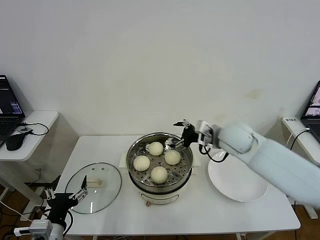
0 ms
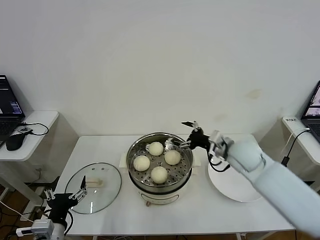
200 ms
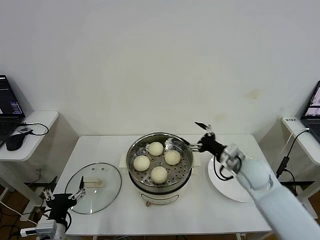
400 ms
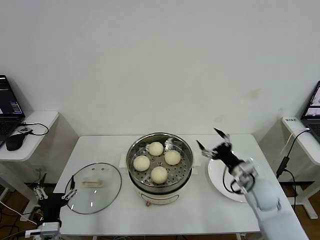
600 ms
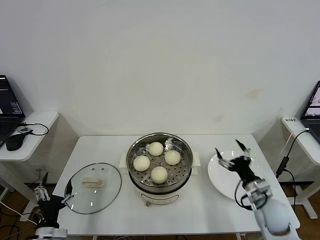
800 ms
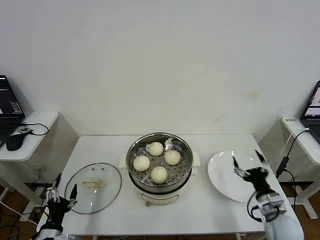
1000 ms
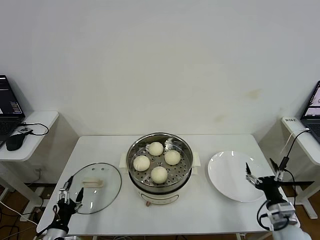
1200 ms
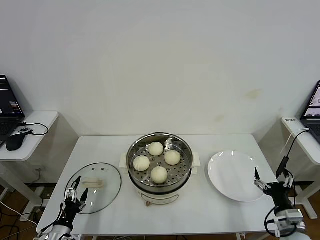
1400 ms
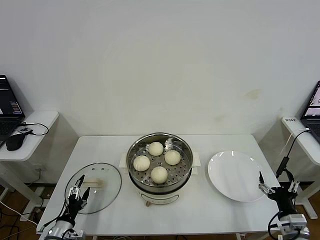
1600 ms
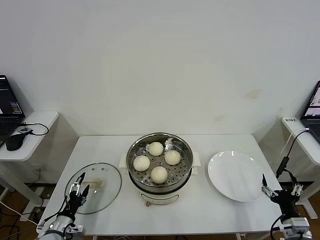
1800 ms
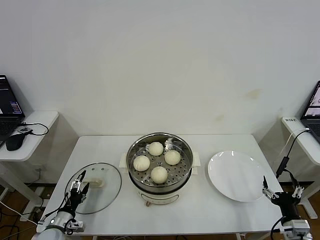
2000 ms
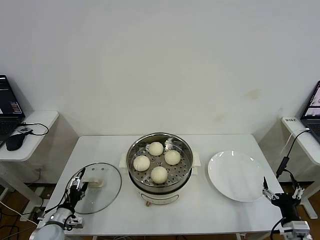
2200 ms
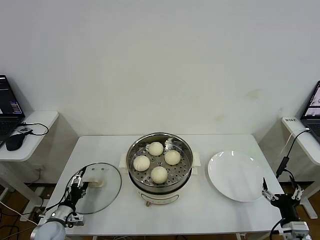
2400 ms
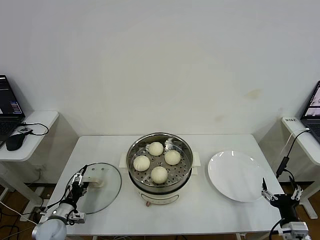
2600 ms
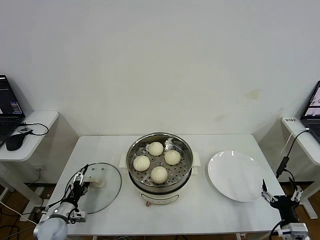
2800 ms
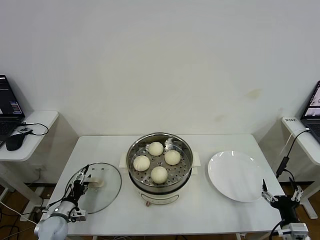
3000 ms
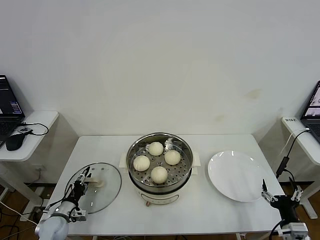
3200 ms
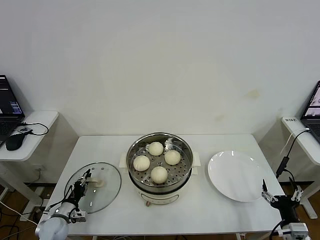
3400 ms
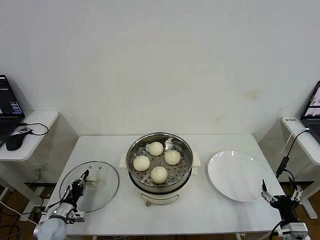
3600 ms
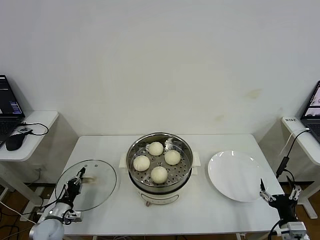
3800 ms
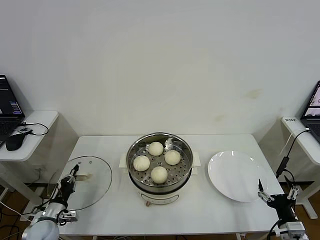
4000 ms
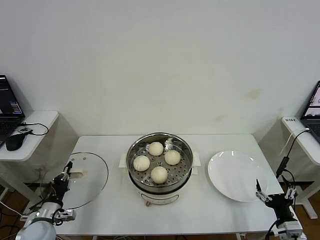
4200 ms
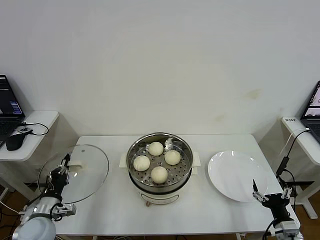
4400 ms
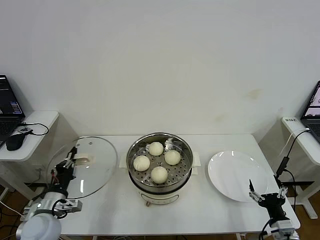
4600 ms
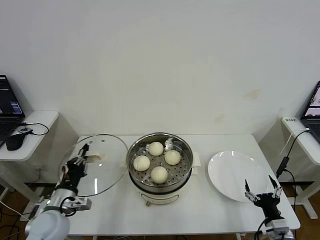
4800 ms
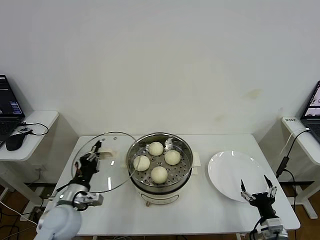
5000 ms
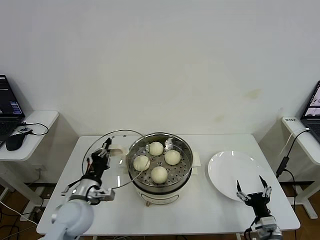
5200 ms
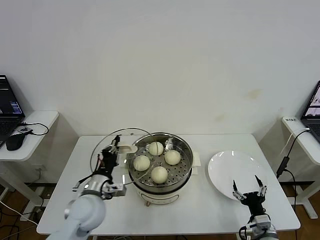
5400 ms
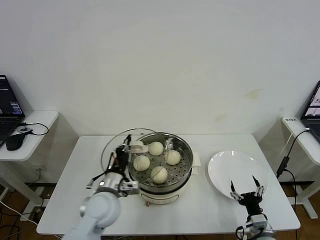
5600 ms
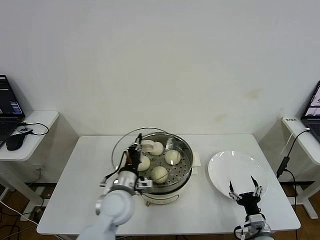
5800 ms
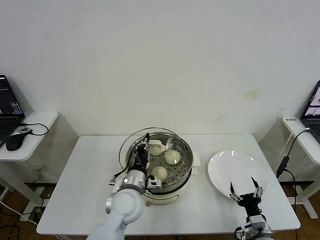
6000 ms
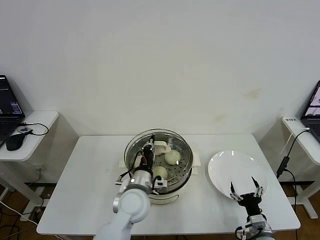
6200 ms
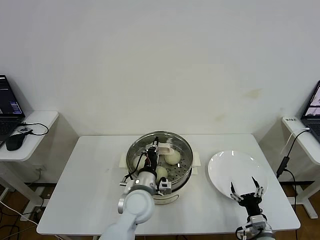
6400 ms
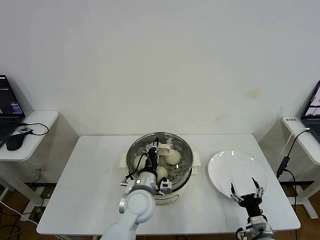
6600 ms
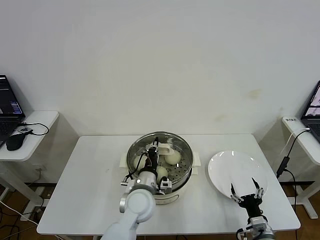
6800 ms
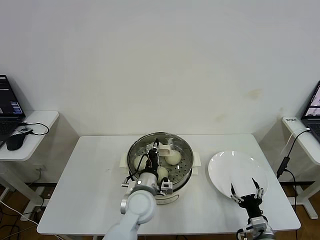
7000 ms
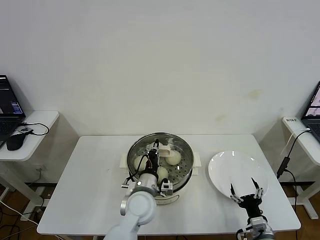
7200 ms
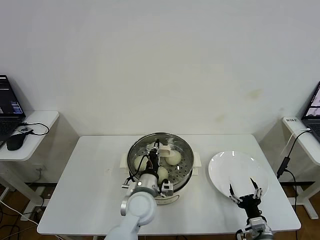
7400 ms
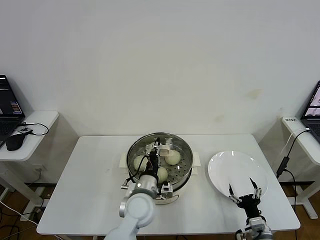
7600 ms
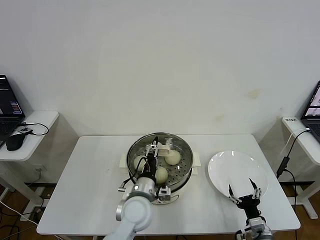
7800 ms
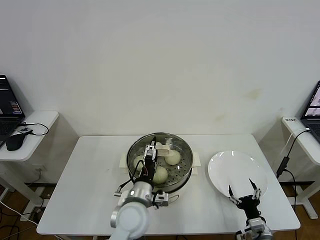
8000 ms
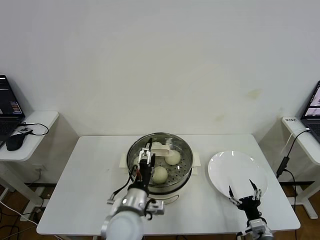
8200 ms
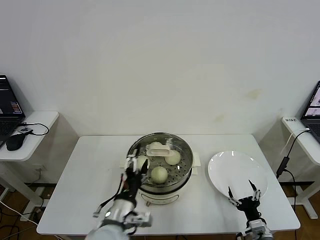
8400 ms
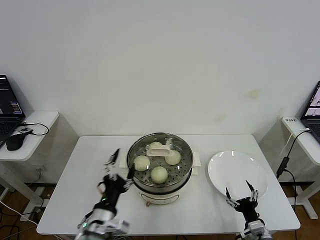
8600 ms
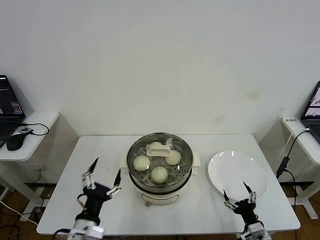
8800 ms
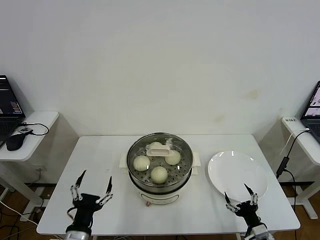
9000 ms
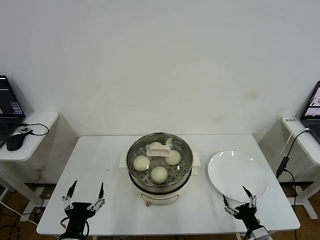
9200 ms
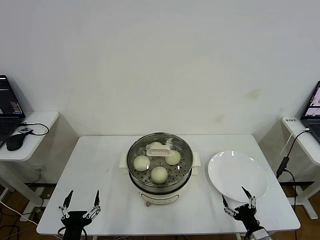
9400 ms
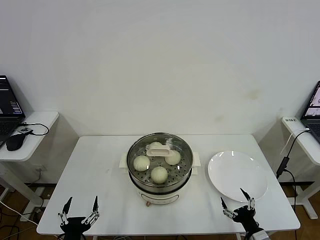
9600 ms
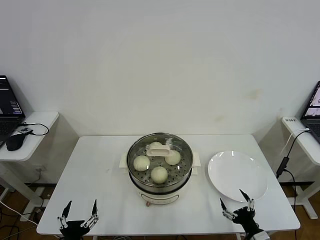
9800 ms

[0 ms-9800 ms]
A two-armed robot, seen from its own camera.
Step, 0 ms to 3600 ms: Grasp the pot lid with left gripper.
Step, 3800 ms to 7600 ms: Place the pot lid on the steamer with left gripper.
0 ms to 1400 ms: The left gripper travels downward and to the left by about 15 cm; the right gripper heads backward, downward and to the right, covering some 35 cm.
1400 ms to 2800 ms: The left gripper travels forward by roughly 10 cm.
2800 ms to 4200 ms: The left gripper goes about 5 cm upward, and closes.
4200 ms to 5600 ms: The right gripper travels to the left and downward by about 10 cm; the left gripper heads to the right and upward, covering about 25 cm.
5600 ms to 7000 ms: The left gripper goes roughly 10 cm to the right.
7000 ms to 8400 ms: The left gripper shifts approximately 10 cm backward and to the left, and opens up.
8400 ms to 9800 ms: The left gripper moves to the left, backward and downward, about 20 cm.

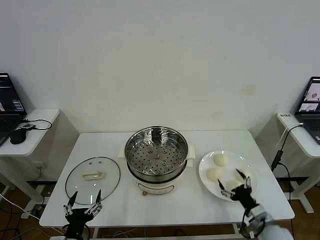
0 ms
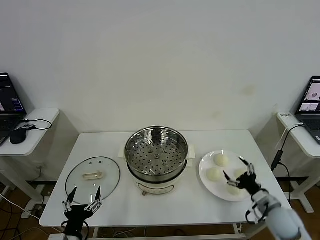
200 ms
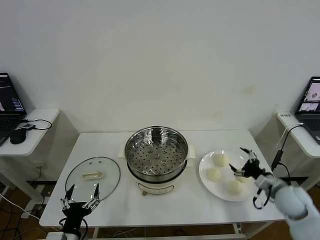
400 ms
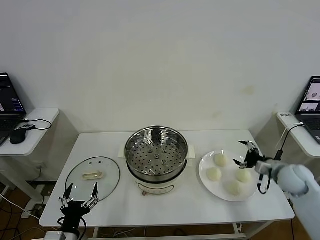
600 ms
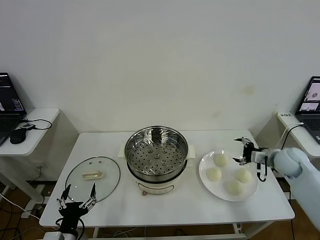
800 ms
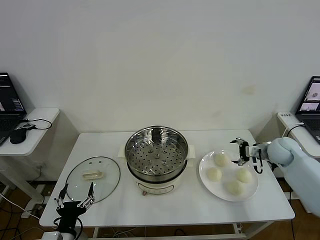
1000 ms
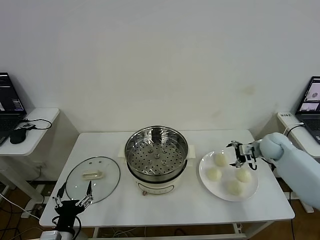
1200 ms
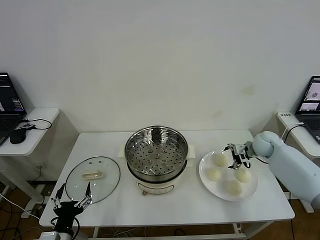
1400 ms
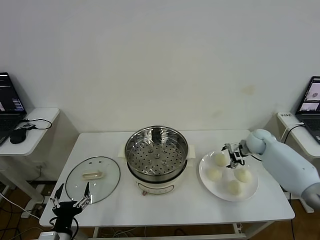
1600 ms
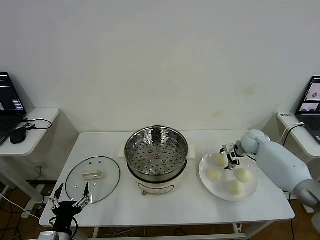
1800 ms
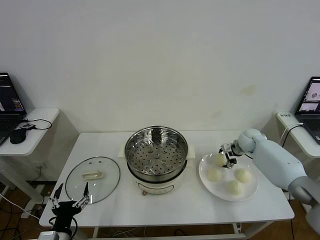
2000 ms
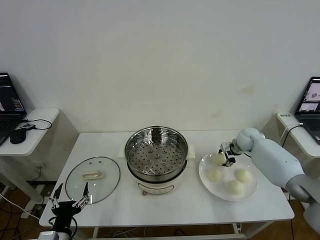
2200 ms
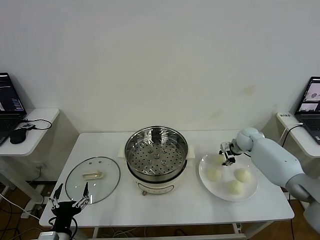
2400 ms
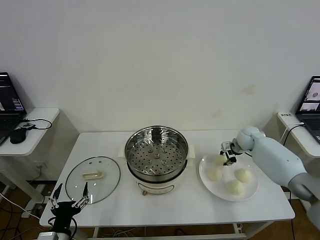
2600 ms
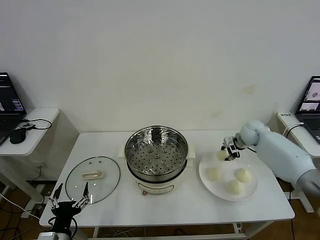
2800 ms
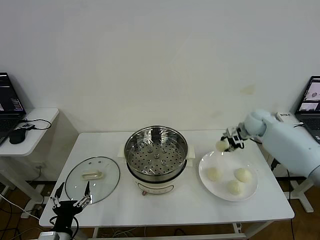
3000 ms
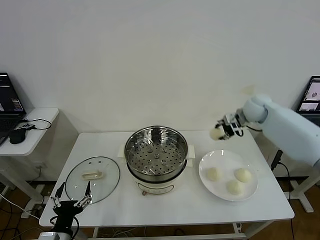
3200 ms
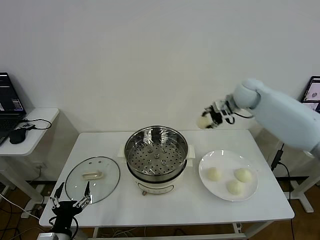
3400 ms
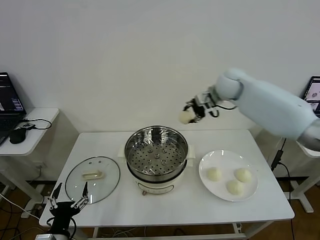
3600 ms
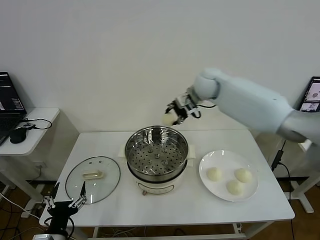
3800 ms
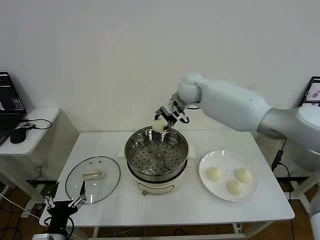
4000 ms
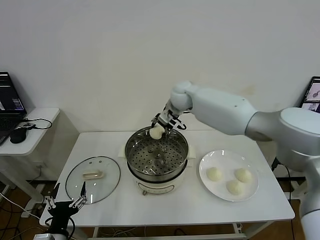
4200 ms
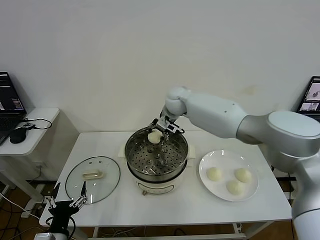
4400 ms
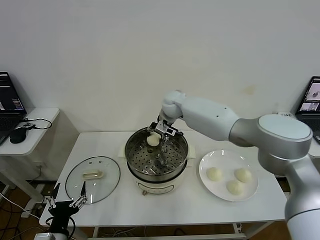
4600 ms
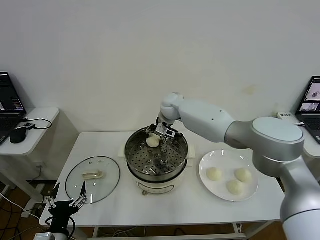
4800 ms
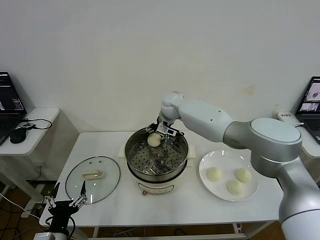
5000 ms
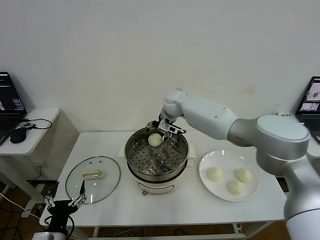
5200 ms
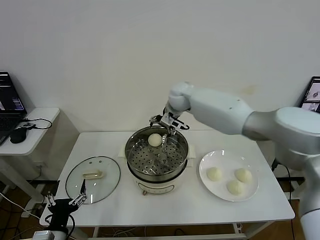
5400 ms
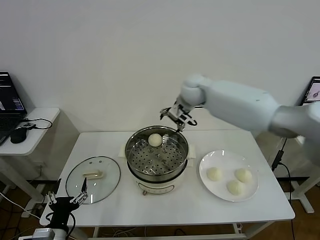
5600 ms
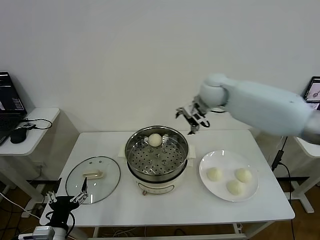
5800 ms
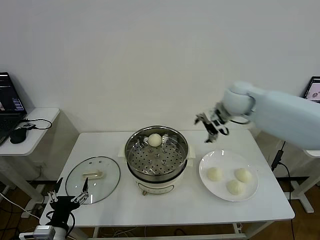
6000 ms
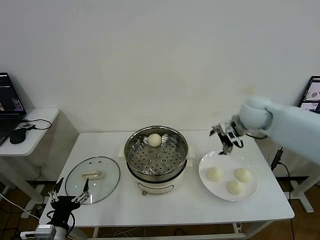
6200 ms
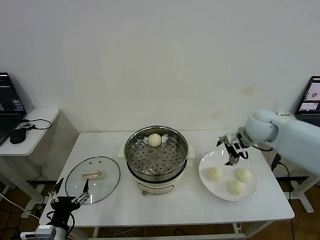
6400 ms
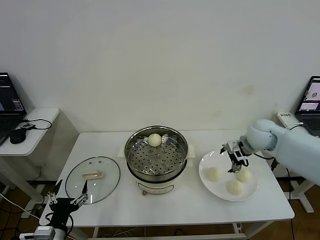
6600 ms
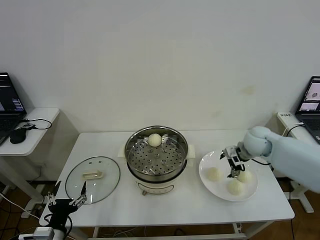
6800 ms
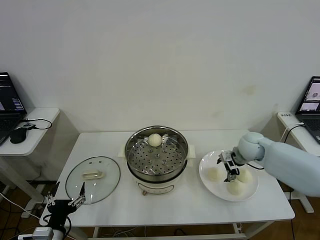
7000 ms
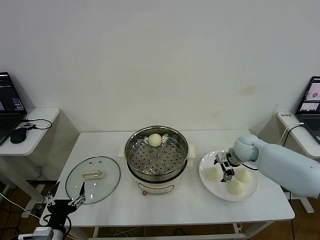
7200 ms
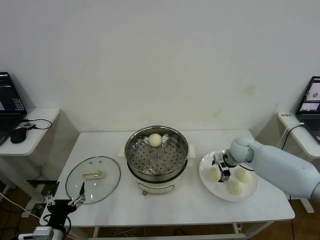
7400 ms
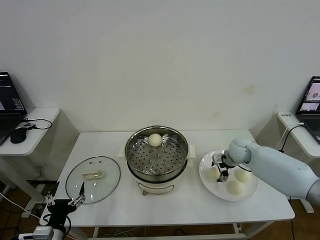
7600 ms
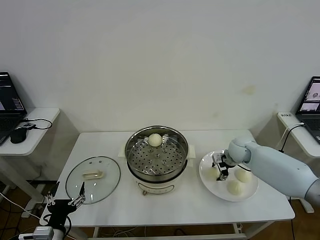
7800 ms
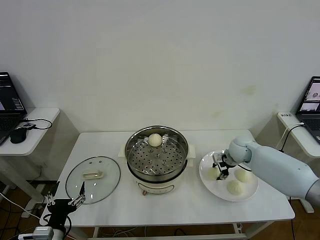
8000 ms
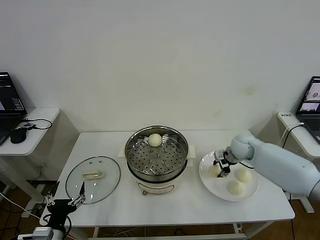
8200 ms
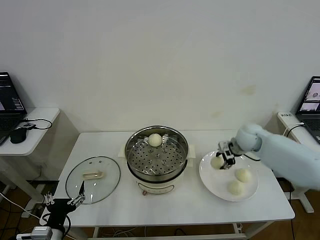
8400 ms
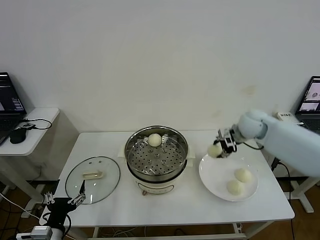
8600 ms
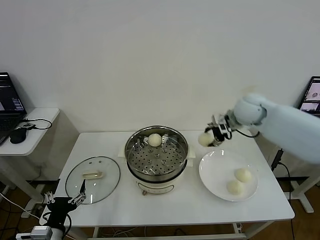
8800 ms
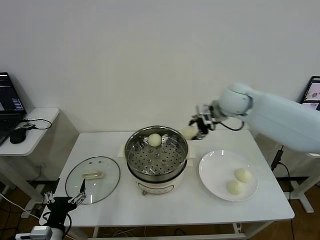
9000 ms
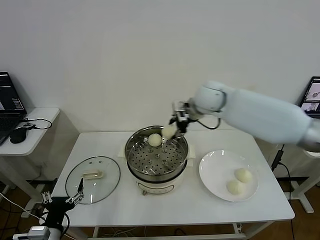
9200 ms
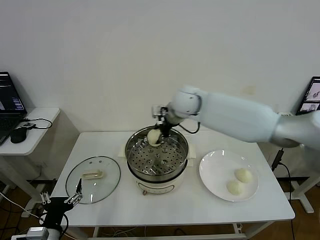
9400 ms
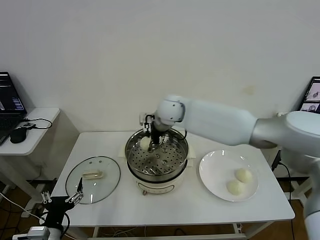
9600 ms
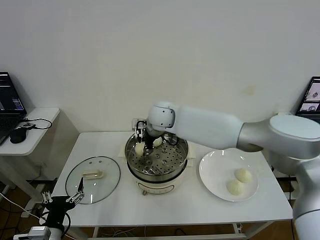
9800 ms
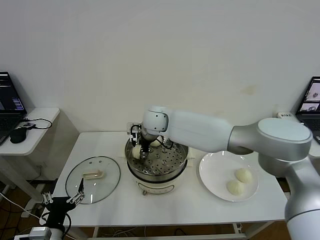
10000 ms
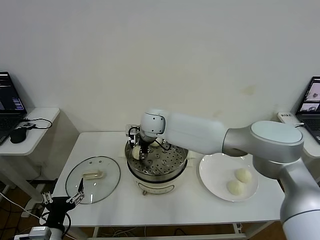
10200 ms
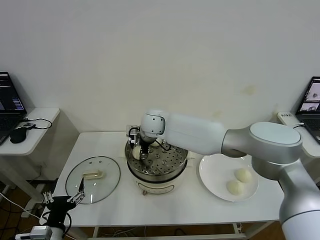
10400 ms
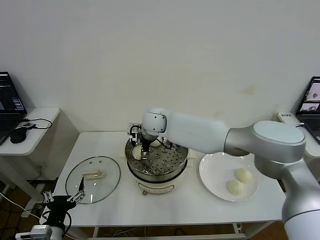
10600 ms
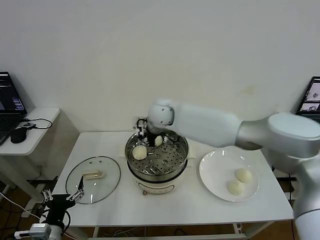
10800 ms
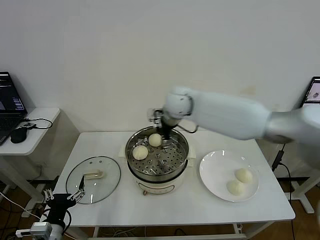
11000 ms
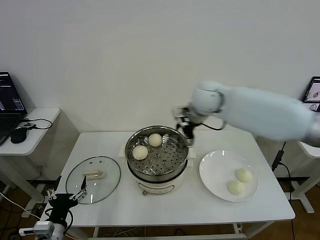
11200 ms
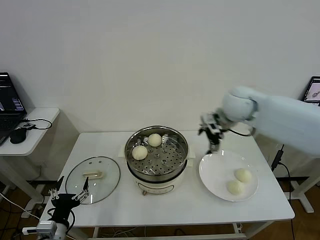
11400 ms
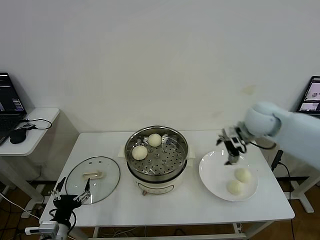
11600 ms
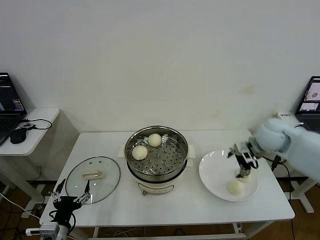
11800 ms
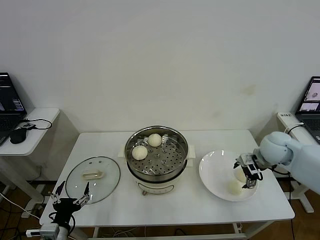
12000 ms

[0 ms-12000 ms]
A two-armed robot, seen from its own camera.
Step, 0 ms to 2200 ms: Grasp the baozi in the plate with right gripper.
Step, 2400 ms to 5000 ms: Place the baozi on the steamer with right gripper.
Step, 5200 ms to 7800 ms: Grasp the baozi in the plate with right gripper.
Step, 8000 ms to 10600 ms: Place the baozi on the steamer with right gripper.
1600 ms to 3000 ms: The right gripper heads upward, covering about 10 cm, and closes up.
3000 ms to 4400 ms: The right gripper is displaced to the left by approximately 30 cm.
4400 ms to 6000 ms: The right gripper shifts about 20 cm to the right and backward, and opens.
6000 ms to 7600 ms: The right gripper goes about 20 cm downward.
7600 ms to 9000 ms: The right gripper goes about 25 cm upward and to the left, and closes.
9000 ms to 10400 ms: The right gripper moves to the left and downward, roughly 25 cm.
10400 ms to 12000 ms: The right gripper shifts roughly 40 cm to the right, and opens up.
